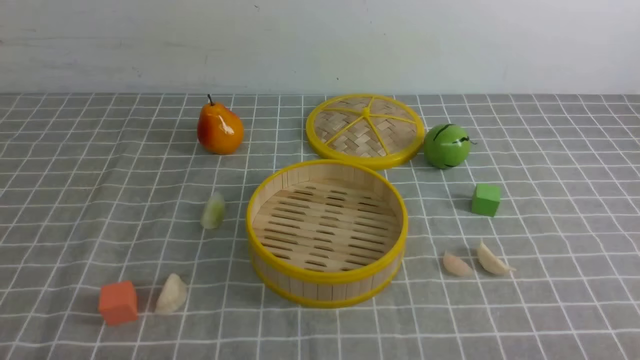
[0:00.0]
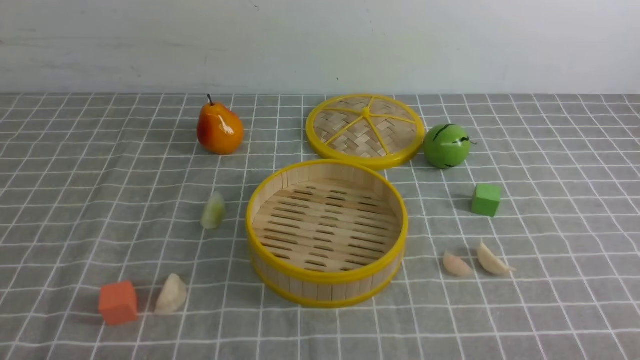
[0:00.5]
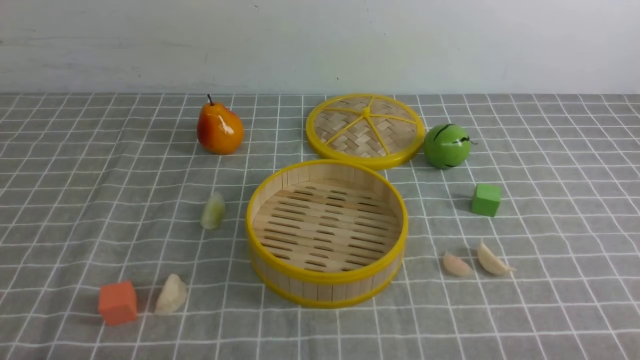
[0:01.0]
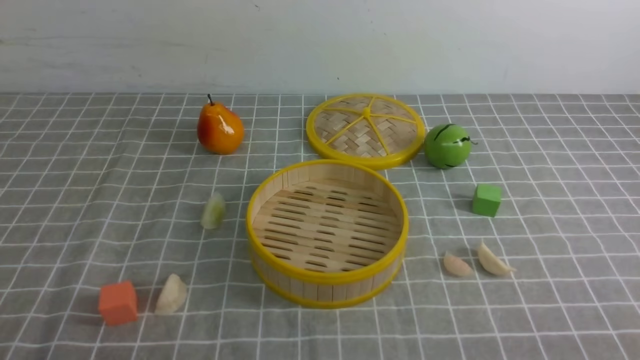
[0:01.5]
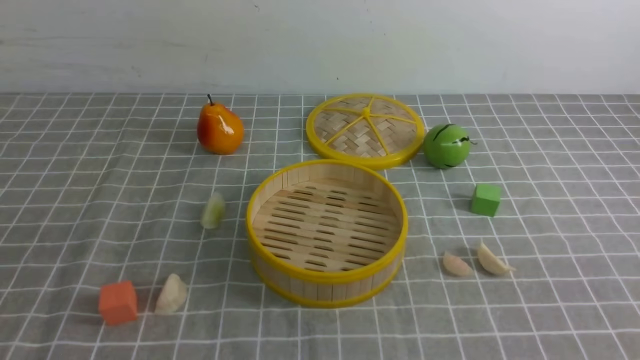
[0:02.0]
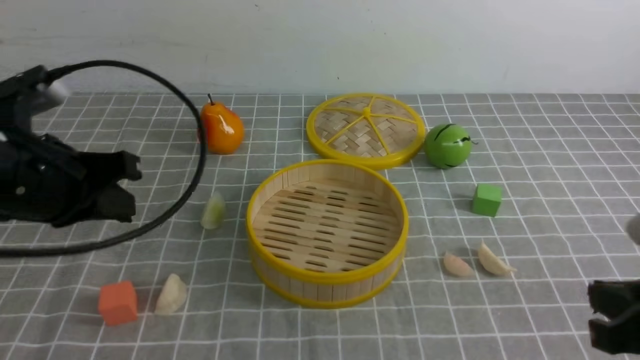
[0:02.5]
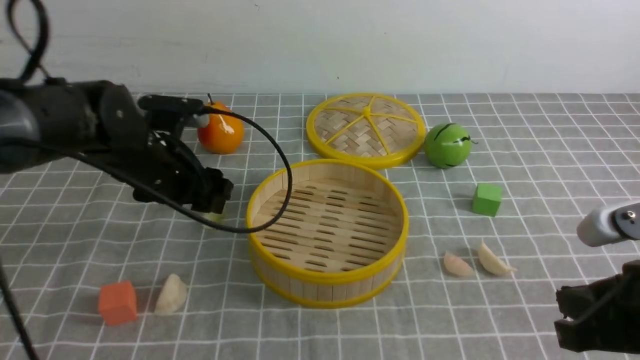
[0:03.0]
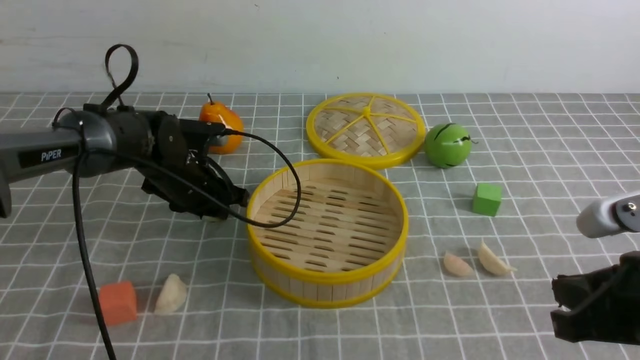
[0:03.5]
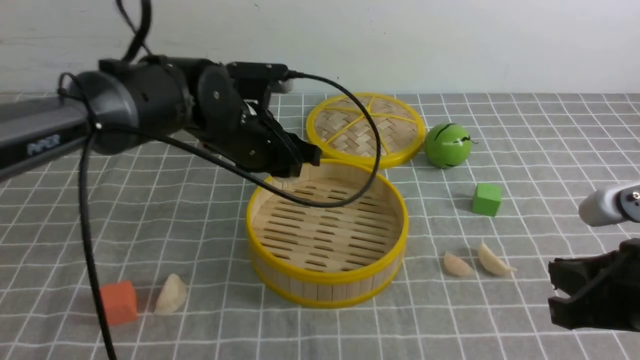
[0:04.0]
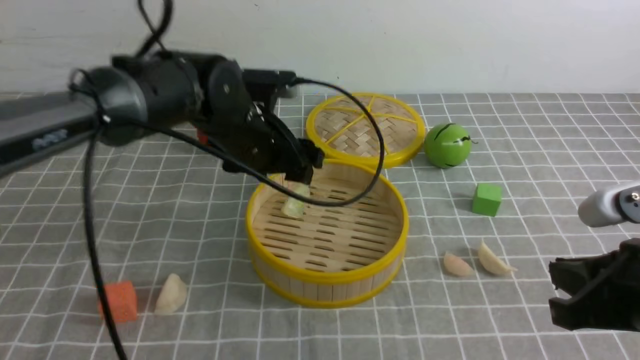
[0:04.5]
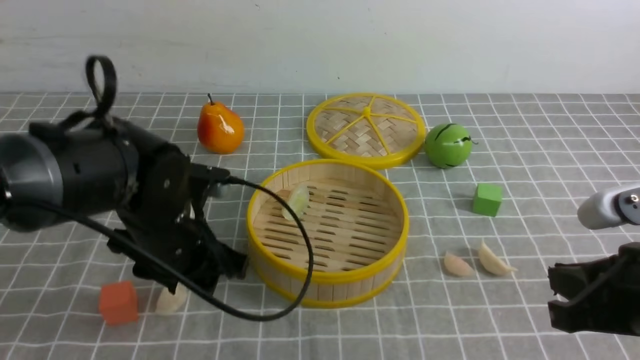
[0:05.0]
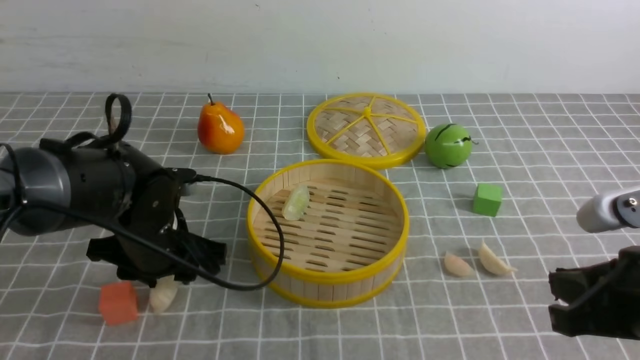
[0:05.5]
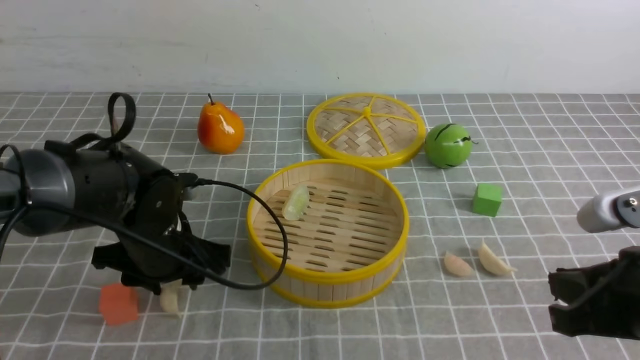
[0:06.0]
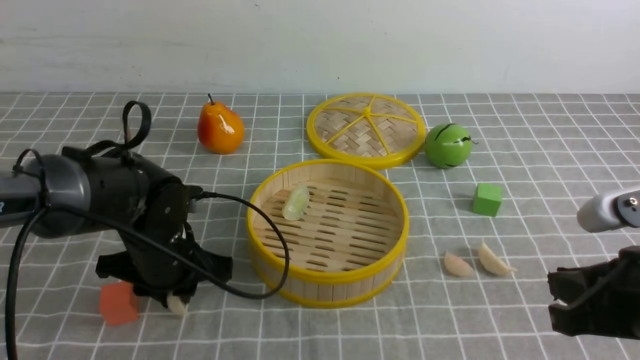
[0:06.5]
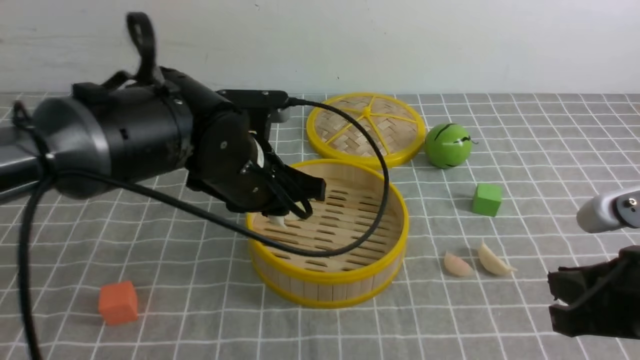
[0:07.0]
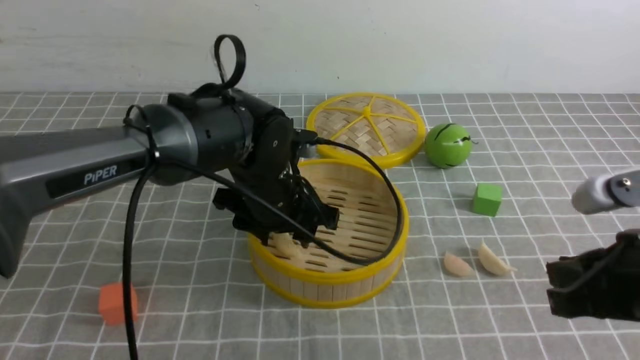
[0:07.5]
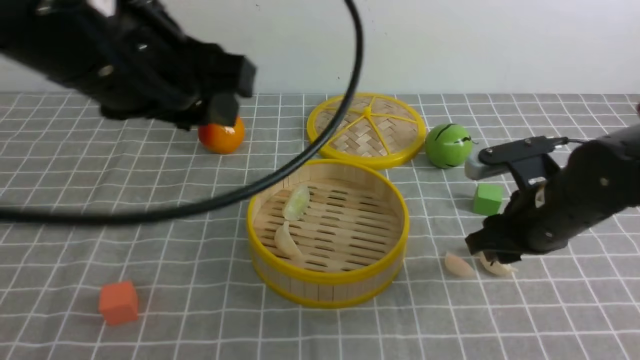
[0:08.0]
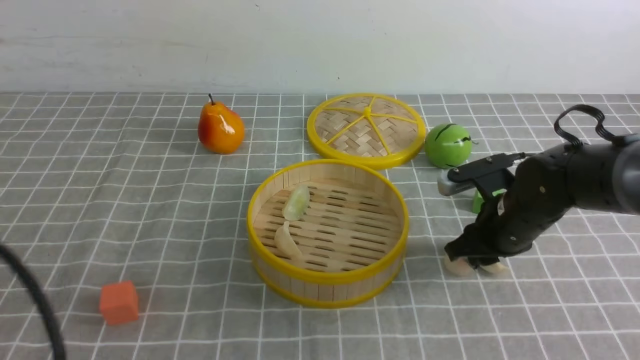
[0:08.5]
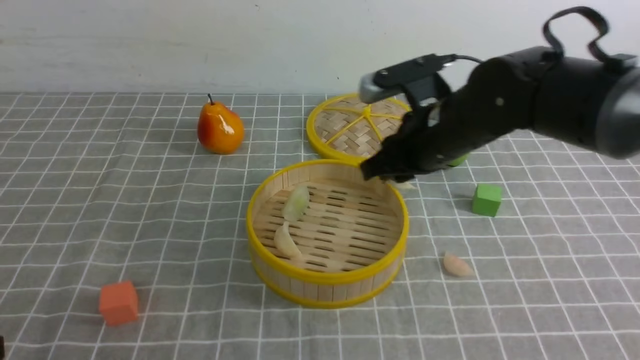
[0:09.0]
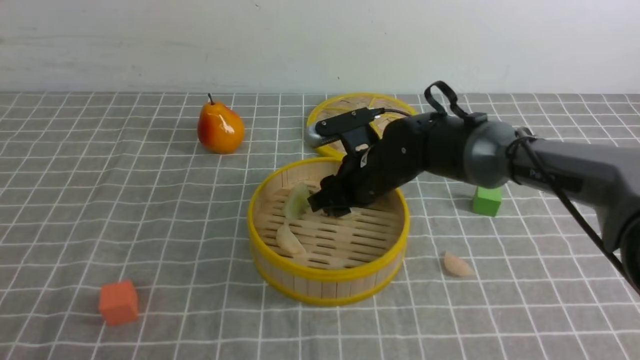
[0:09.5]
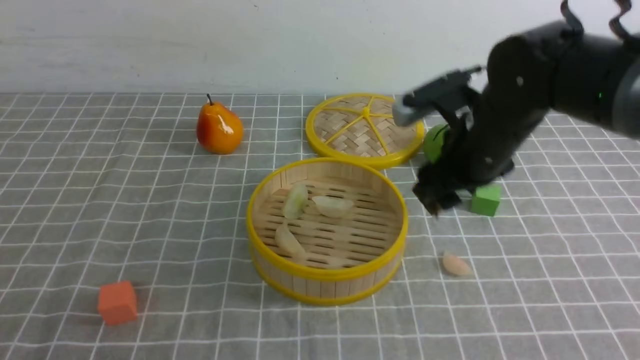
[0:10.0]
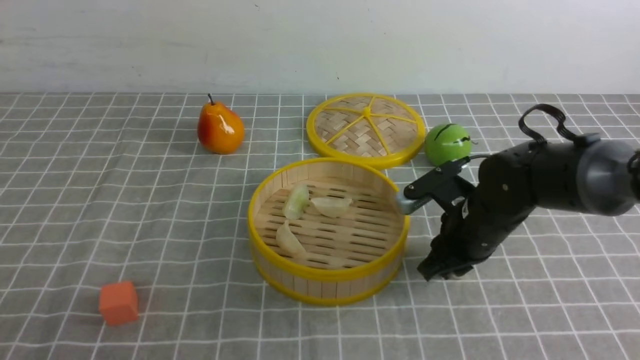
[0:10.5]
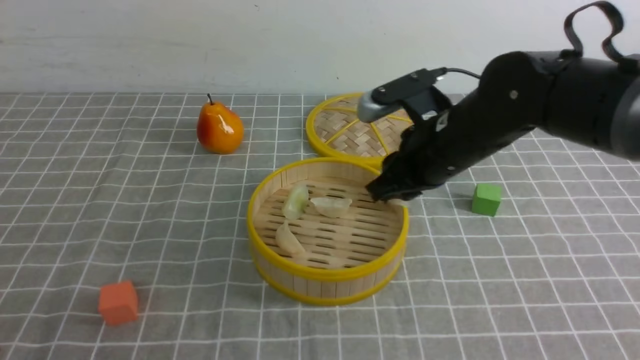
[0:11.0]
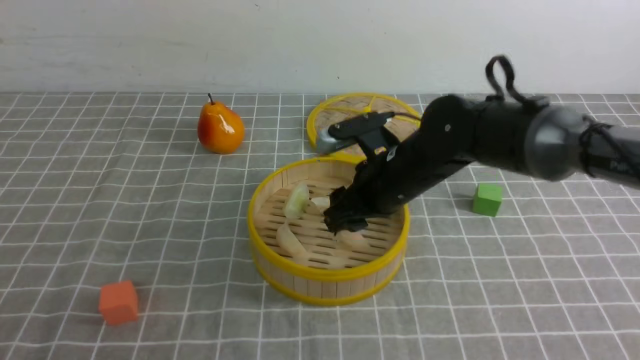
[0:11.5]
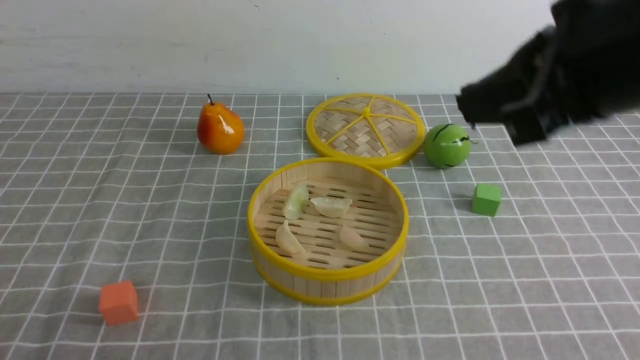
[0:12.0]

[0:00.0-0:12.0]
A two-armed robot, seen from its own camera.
Task of the whole recording: put the dumplings into the steamer on the table with the grey tablecloth.
Step, 0:00.0 to 0:03.5: use the left arm to grab a dumpling.
Step, 0:04.0 to 0:04.5: use the left arm to put the dumpling into the steamer.
Step, 0:05.0 to 0:06.5: use the left arm to grab a dumpling.
Step, 0:07.0 to 0:07.5: use the left arm to put the dumpling into the steamer.
Step, 0:08.0 to 0:08.5: use the right arm to grab a dumpling.
Step, 0:09.0 to 0:09.5: use the right arm to put the dumpling into the steamer.
Step, 0:10.0 to 0:10.5: use the right arm to grab a dumpling.
Step, 0:11.0 to 0:11.5: use the right arm to put the dumpling into the steamer.
0:02.0 to 0:04.0: The left gripper shifts about 35 cm forward and to the right, and opens its fingers, while the right gripper goes roughly 10 cm forward and to the left.
0:04.0 to 0:06.0: The left gripper goes some 10 cm backward and to the left.
0:06.0 to 0:08.0: The right gripper goes roughly 15 cm forward, and opens up, while the left gripper moves upward and backward, approximately 25 cm.
0:08.0 to 0:10.0: The right gripper travels to the left and forward by approximately 10 cm, while the left gripper moves backward, downward and to the left, some 25 cm.
0:10.0 to 0:12.0: The right gripper is displaced upward and backward by roughly 25 cm, and closes up.

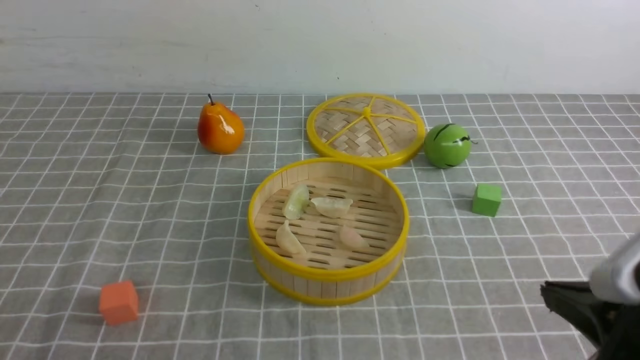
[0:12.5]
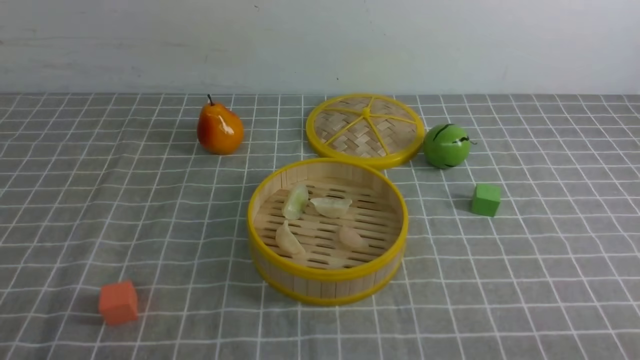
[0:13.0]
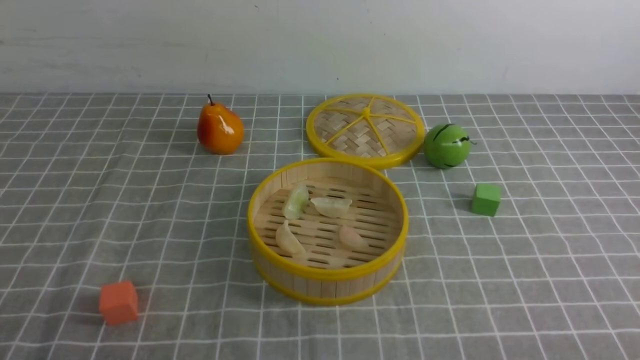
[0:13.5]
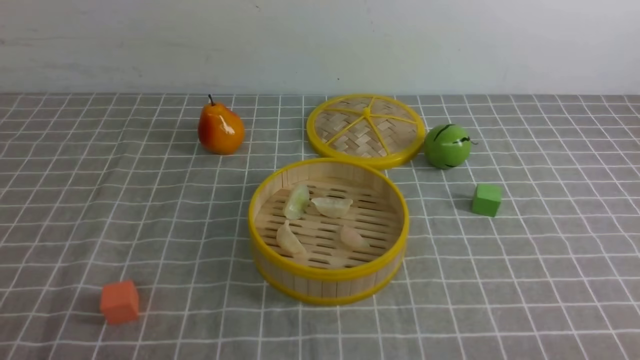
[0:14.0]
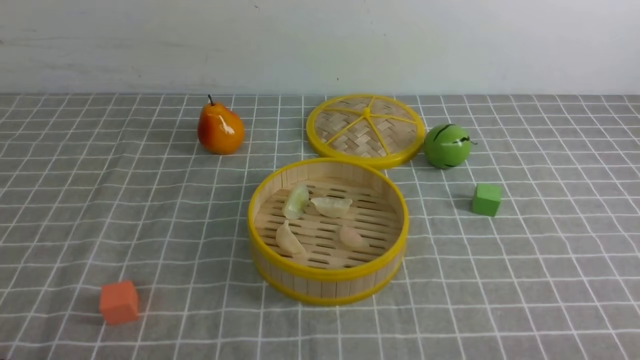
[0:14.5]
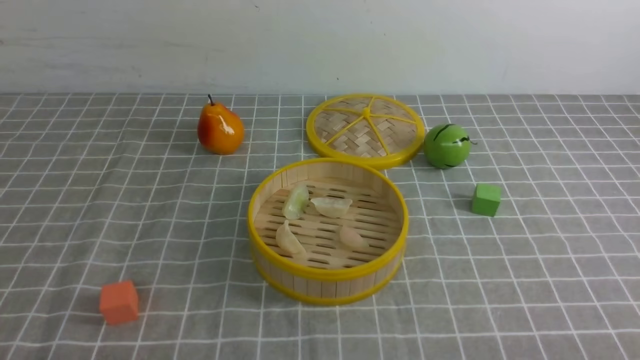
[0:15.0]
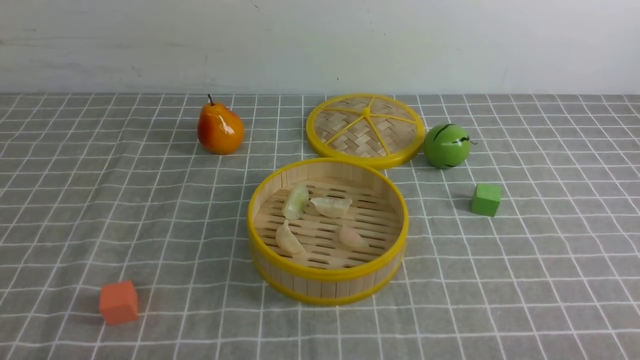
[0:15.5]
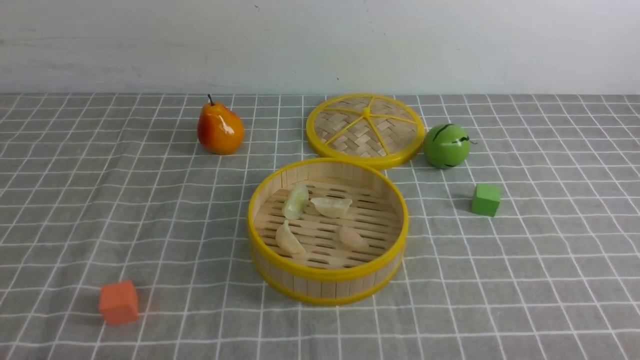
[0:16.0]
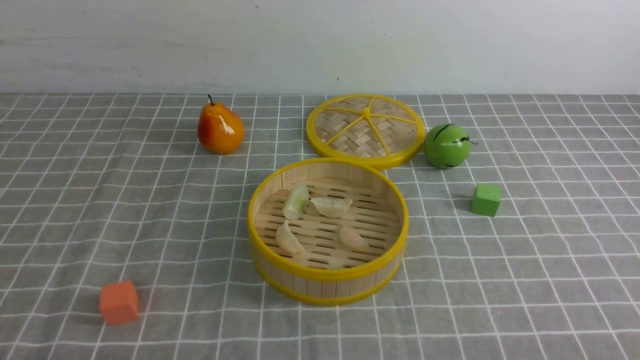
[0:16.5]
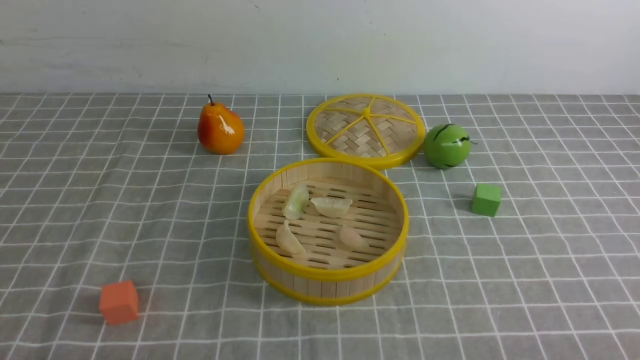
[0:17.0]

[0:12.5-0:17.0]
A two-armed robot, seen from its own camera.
Task of the whole recording: put the dumplings into the steamer on the table with the grey tablecloth.
0:12.5 to 0:14.5: The right gripper heads downward, backward and to the right, covering roughly 15 cm.
